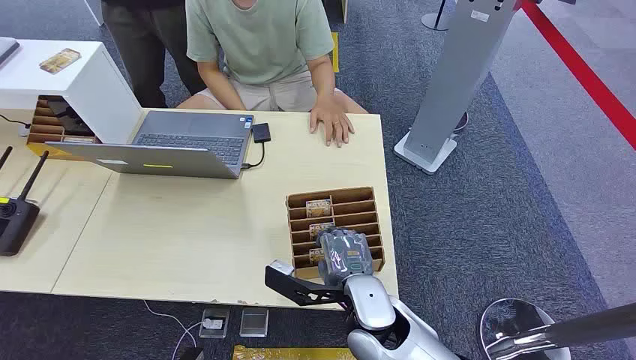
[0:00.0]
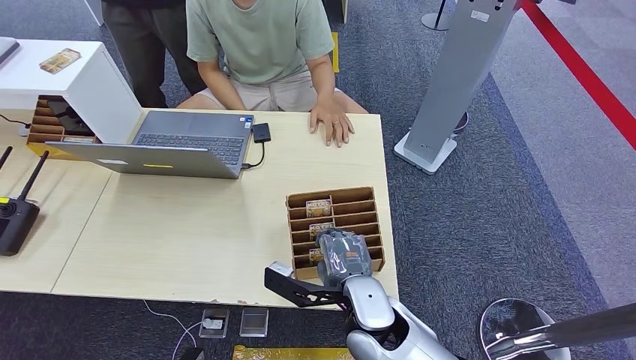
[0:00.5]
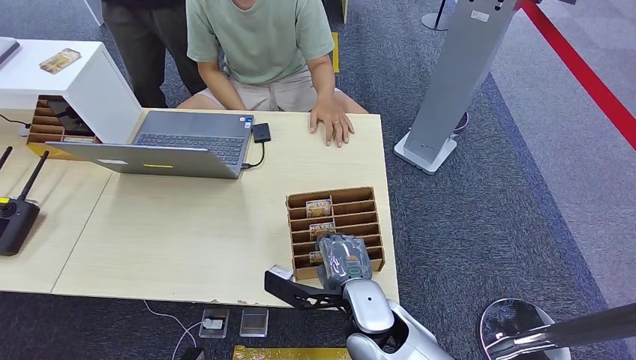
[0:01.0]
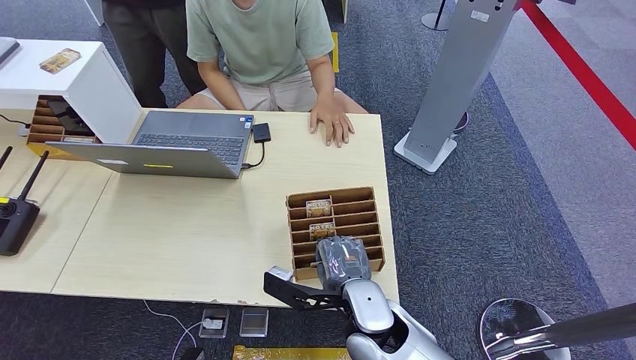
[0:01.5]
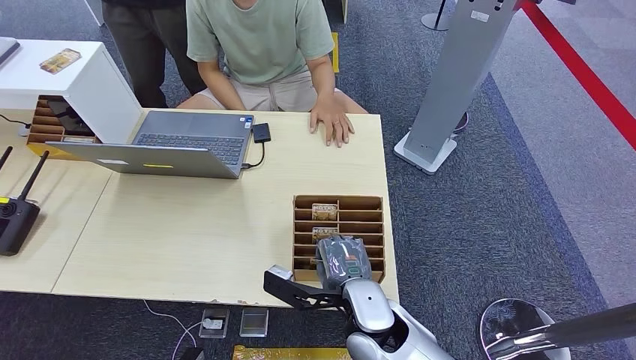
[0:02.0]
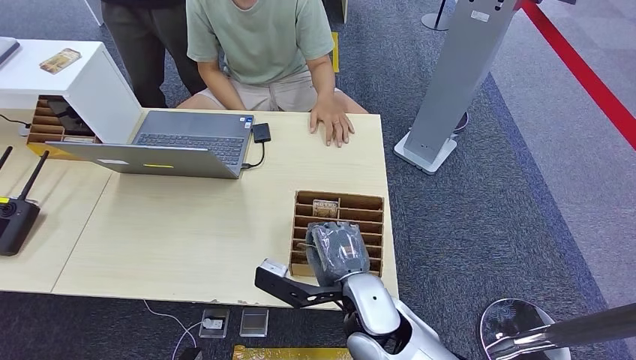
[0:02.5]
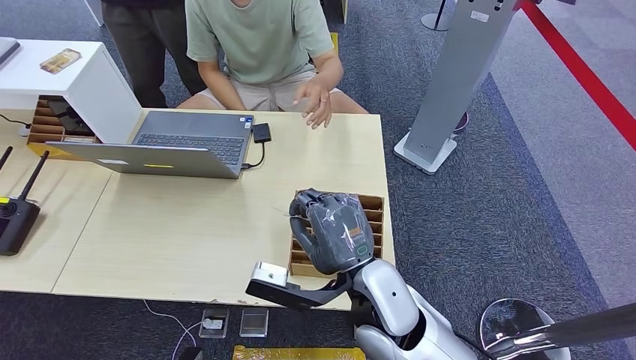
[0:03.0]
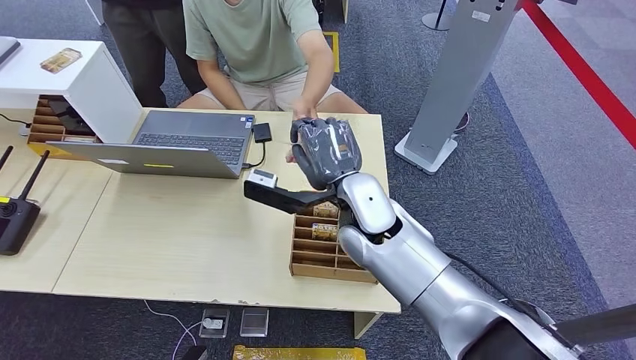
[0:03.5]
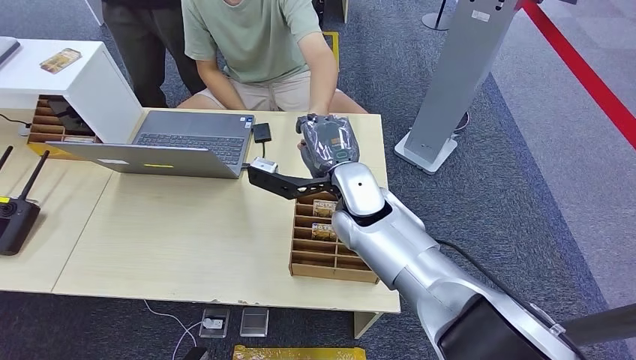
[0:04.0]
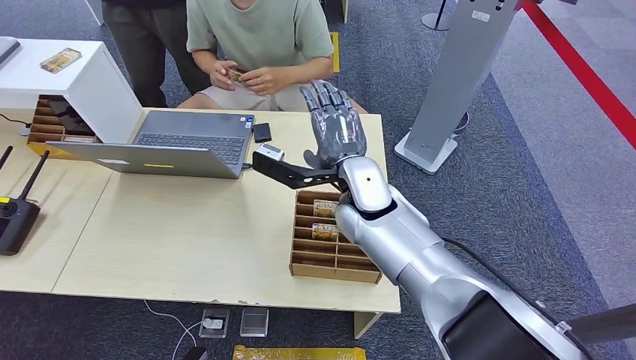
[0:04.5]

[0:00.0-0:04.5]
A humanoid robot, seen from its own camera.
Step, 0:00.0 to 0:02.5: Pick up the key card from the card box.
Step, 0:03.5 to 0:04.5: Hand the key card to the target.
0:02.0 to 0:04.5: The right hand travels forward and upward by some 20 cm.

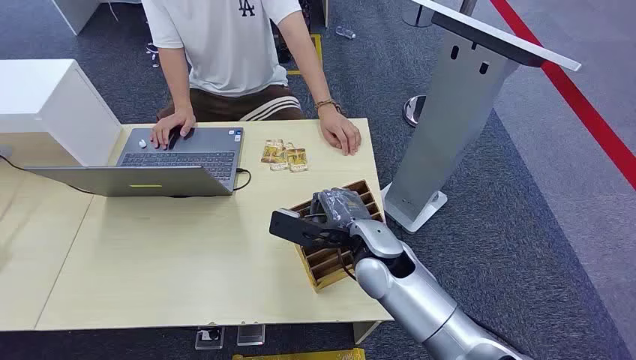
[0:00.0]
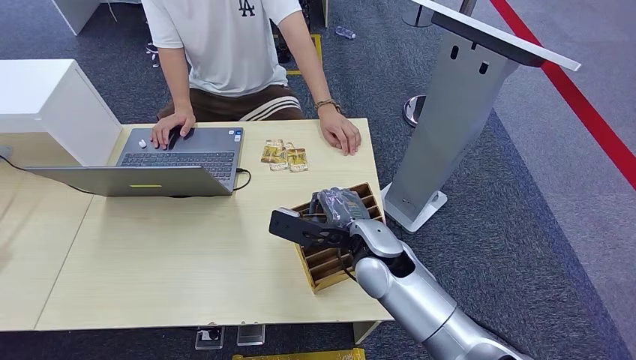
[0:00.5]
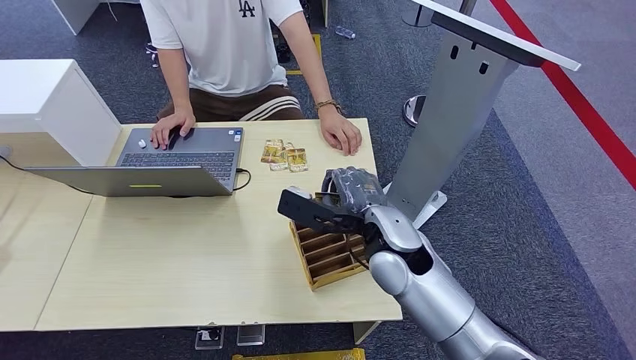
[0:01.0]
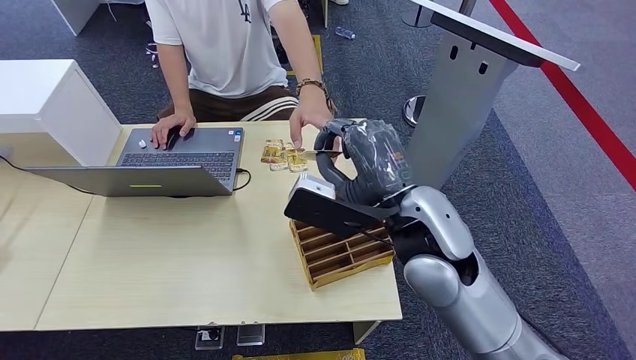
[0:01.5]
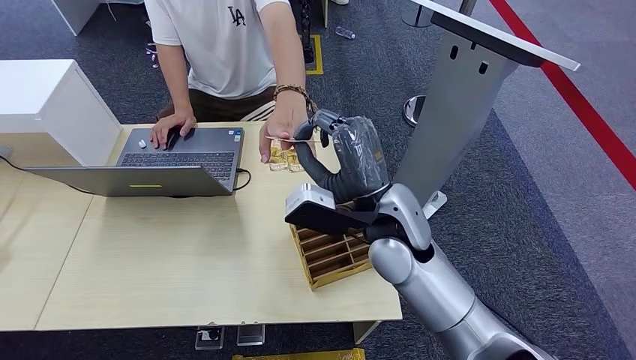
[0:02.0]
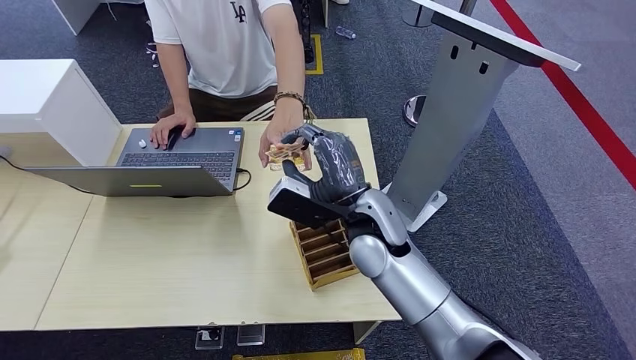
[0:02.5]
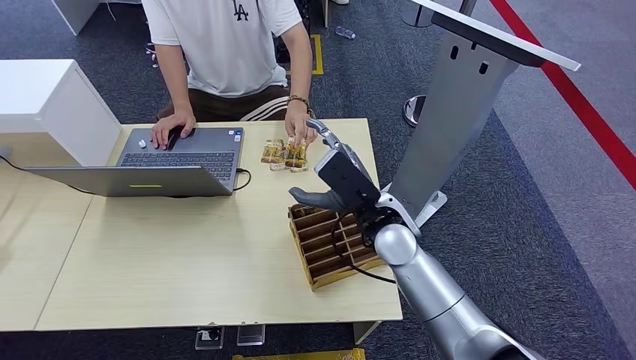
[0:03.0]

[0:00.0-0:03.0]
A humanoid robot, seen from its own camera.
Step, 0:00.0 to 0:01.0: Pick up the key card from the card box.
Step, 0:01.5 to 0:03.0: Hand the key card to the target.
0:01.5 to 0:03.0: The right hand goes about 10 cm downward and forward.
